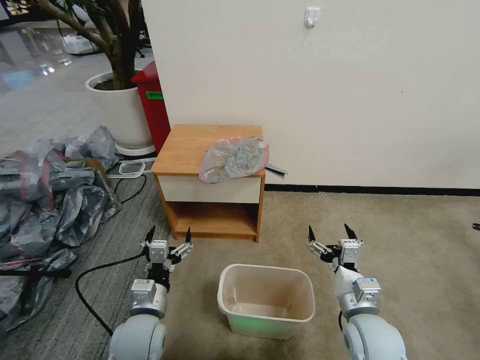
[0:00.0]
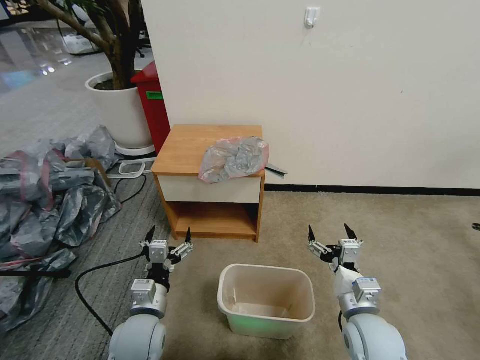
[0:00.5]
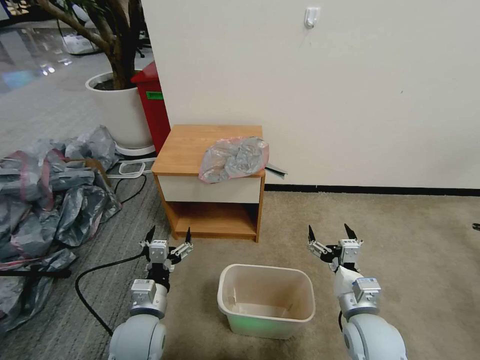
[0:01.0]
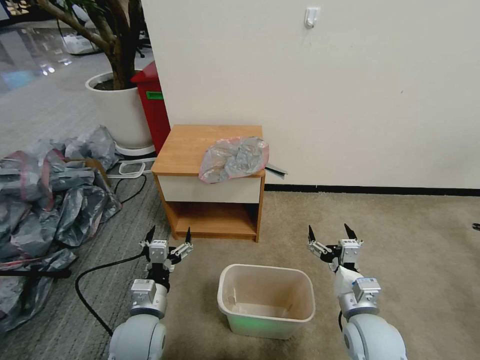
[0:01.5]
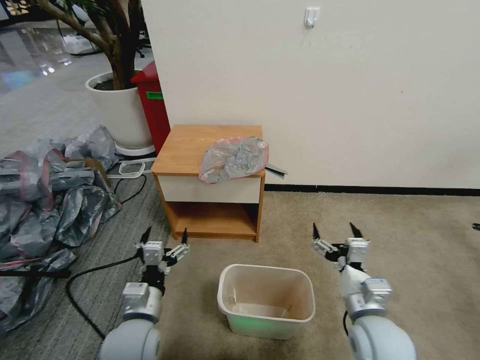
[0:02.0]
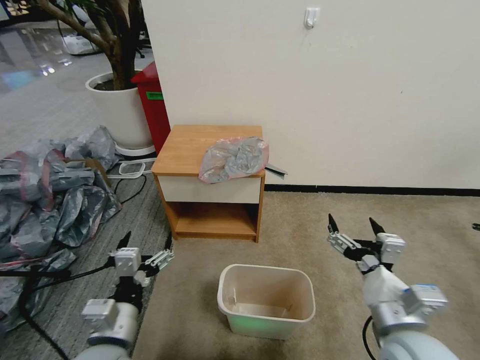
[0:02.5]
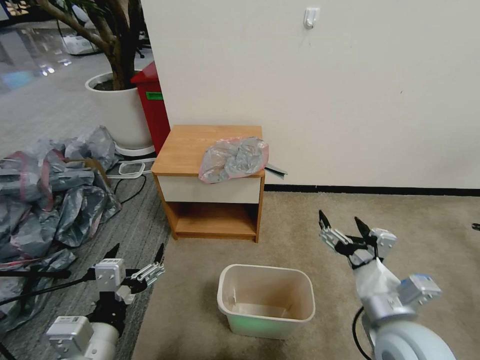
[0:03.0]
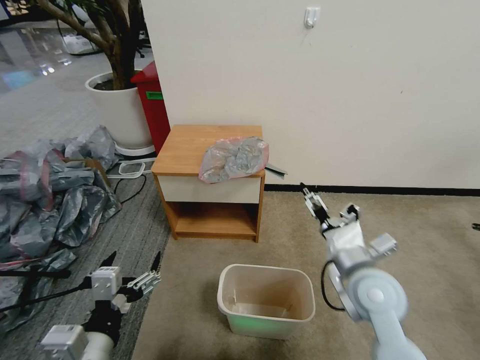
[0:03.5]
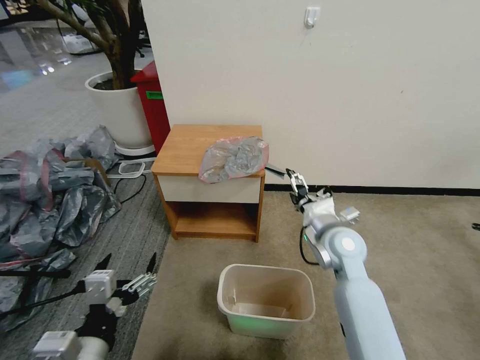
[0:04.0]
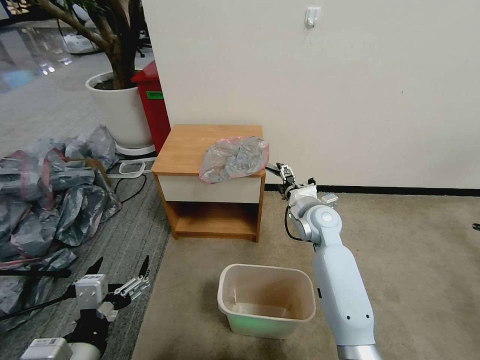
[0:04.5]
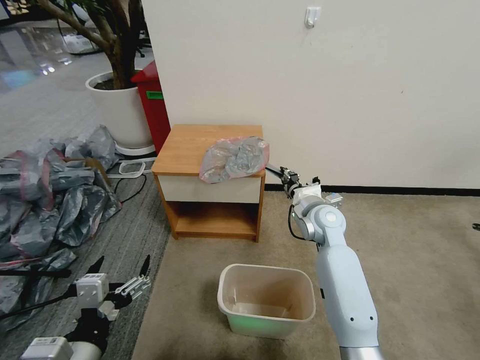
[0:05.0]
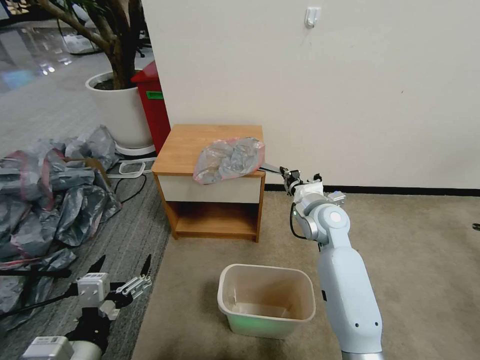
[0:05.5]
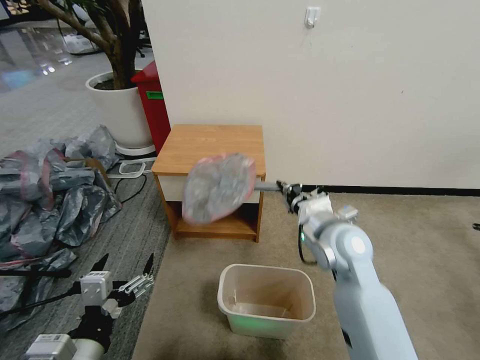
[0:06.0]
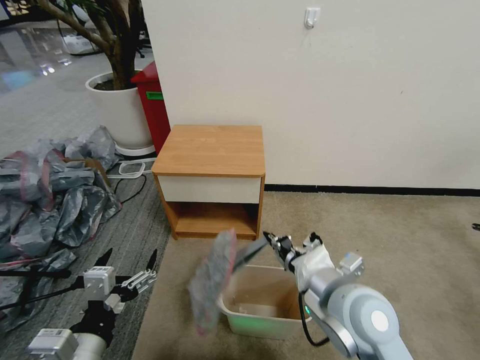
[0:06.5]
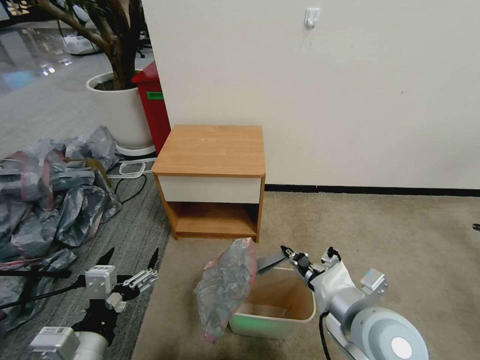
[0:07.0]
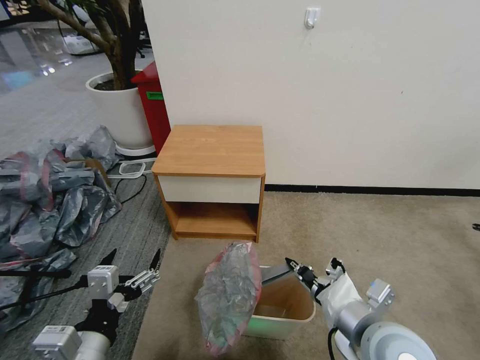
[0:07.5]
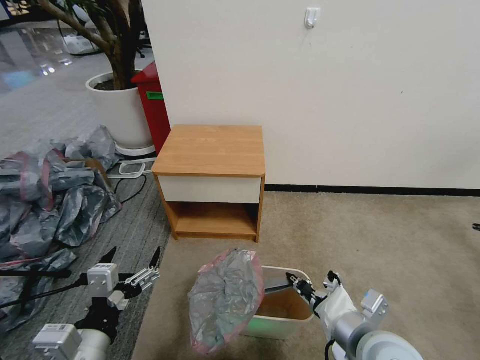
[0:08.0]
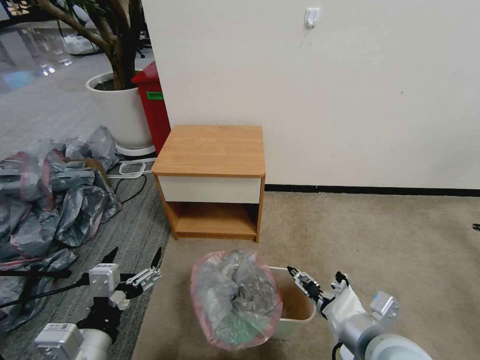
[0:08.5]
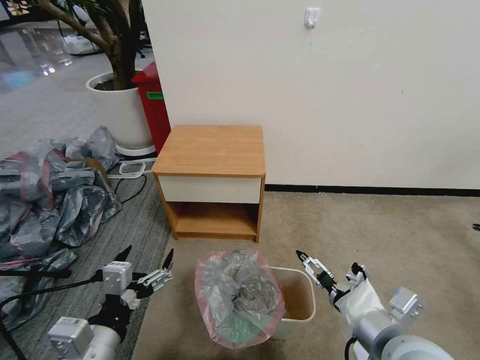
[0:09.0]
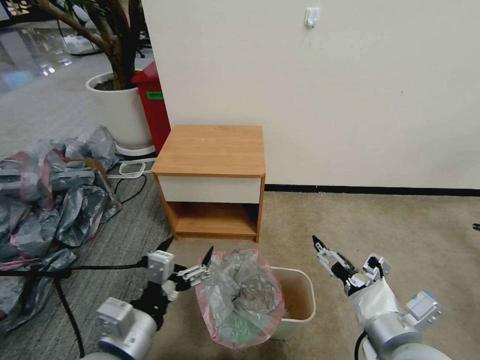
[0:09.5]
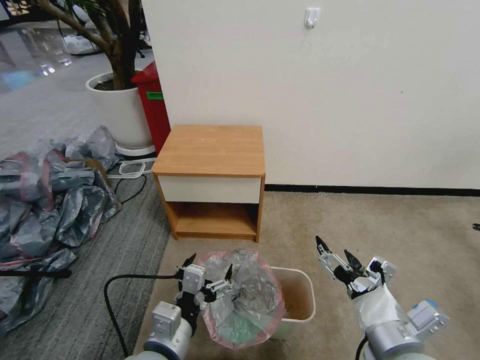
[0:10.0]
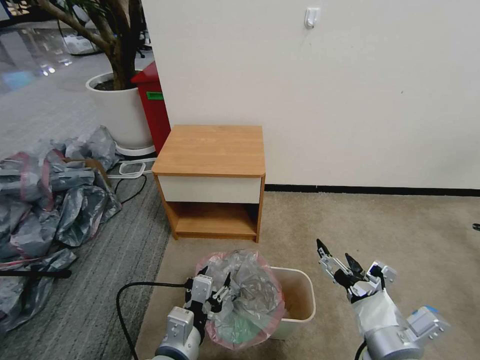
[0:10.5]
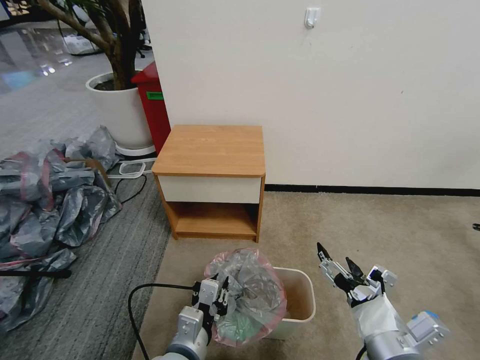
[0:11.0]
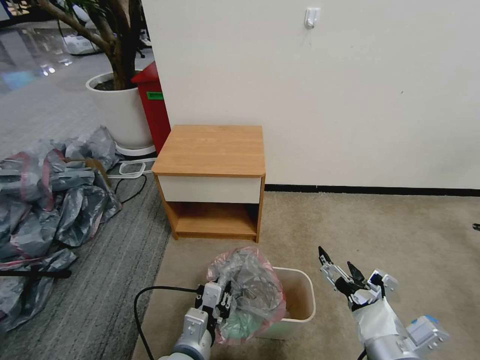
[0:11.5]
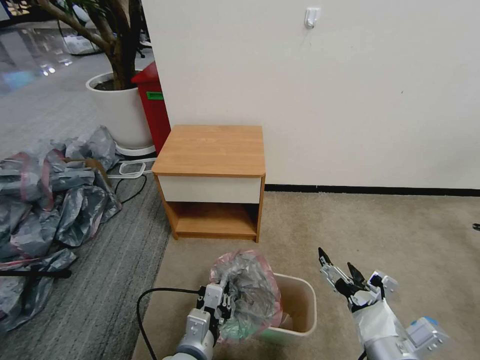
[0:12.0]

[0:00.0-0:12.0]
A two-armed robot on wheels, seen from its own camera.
Task of the whole recording: Pick up the garbage bag from the table and place it over the trash can.
0:02.0 to 0:04.0: The left gripper goes some 15 cm backward and upward. Meanwhile the right gripper is displaced forward by roughly 20 cm.
0:04.0 to 0:06.0: The right gripper moves roughly 5 cm, and closes up.
0:06.0 to 0:08.0: The right gripper travels backward by roughly 20 cm.
0:08.0 to 0:10.0: The right gripper opens up. Meanwhile the left gripper moves to the right, roughly 10 cm.
0:10.0 to 0:12.0: The left gripper goes roughly 10 cm downward, and closes.

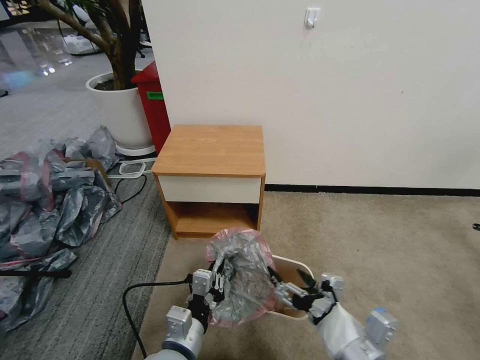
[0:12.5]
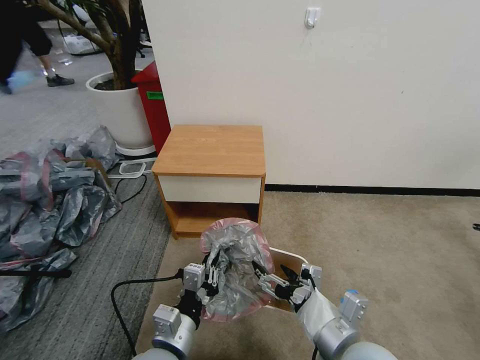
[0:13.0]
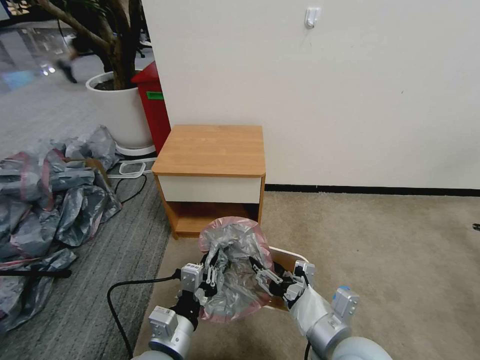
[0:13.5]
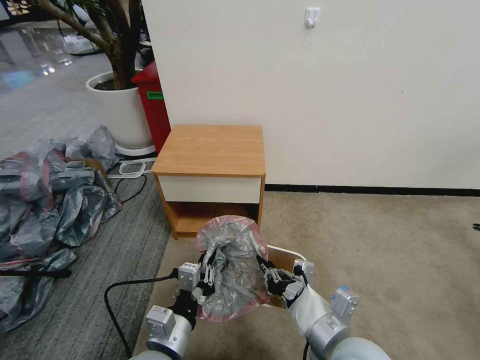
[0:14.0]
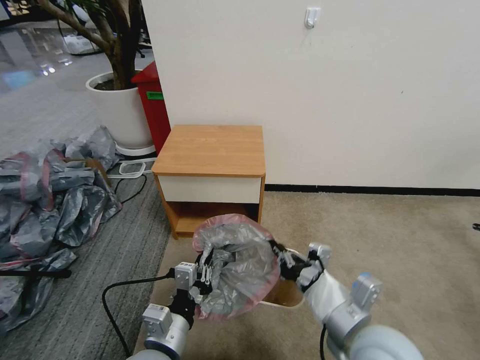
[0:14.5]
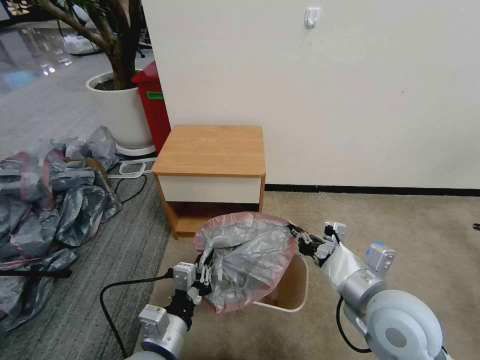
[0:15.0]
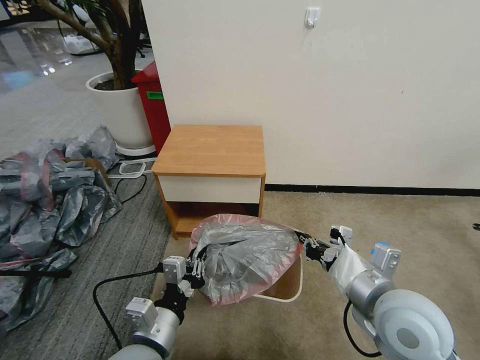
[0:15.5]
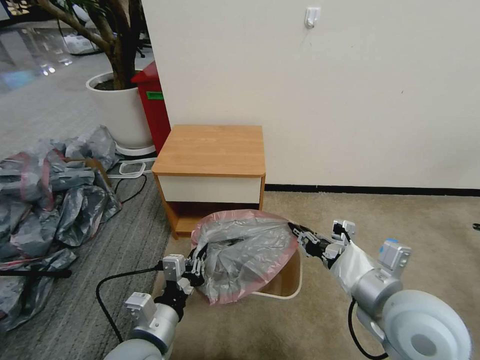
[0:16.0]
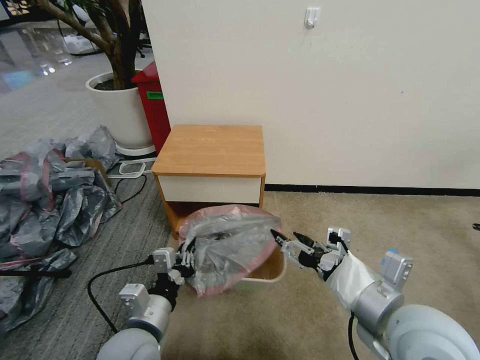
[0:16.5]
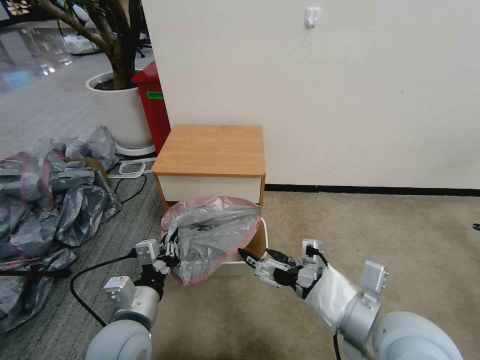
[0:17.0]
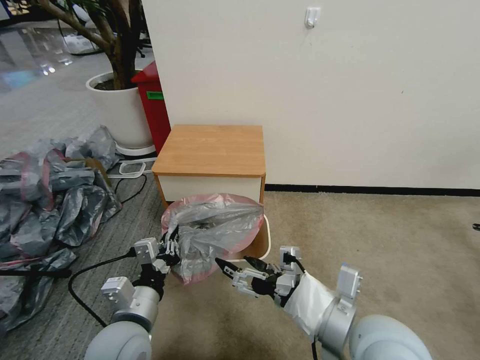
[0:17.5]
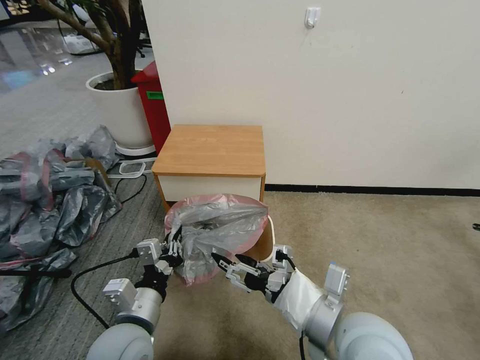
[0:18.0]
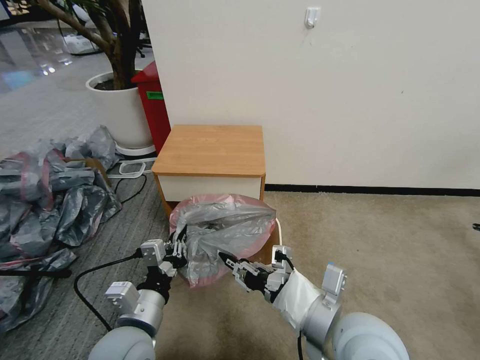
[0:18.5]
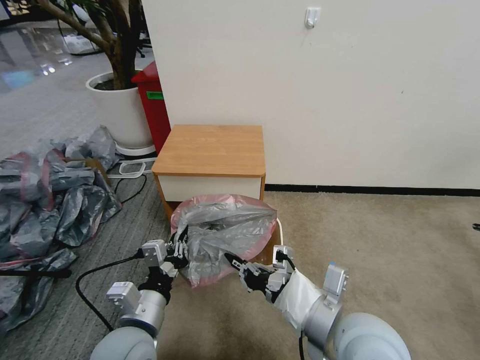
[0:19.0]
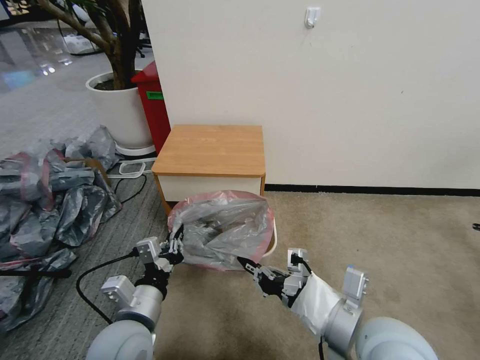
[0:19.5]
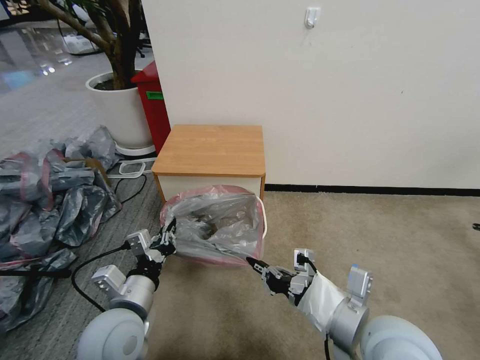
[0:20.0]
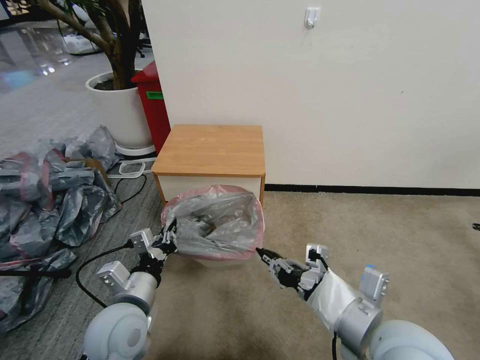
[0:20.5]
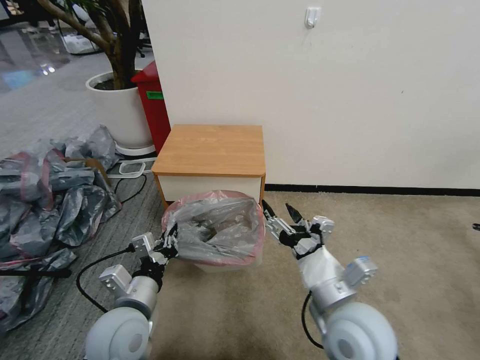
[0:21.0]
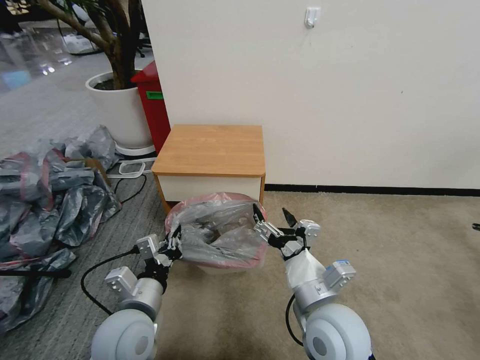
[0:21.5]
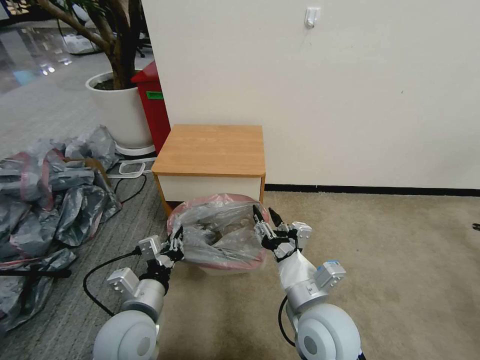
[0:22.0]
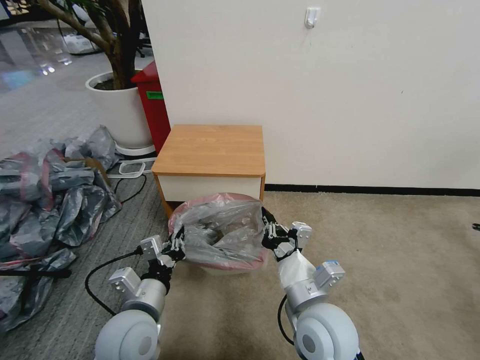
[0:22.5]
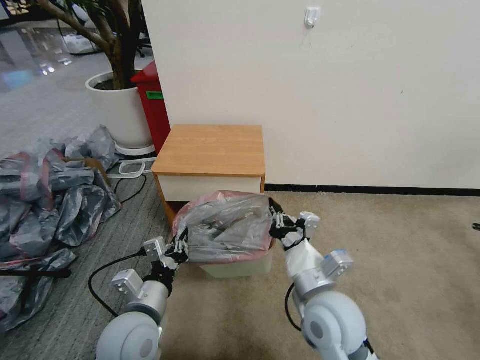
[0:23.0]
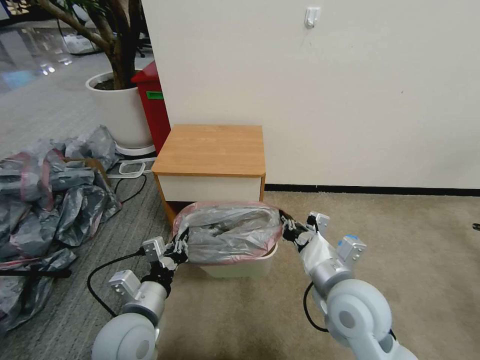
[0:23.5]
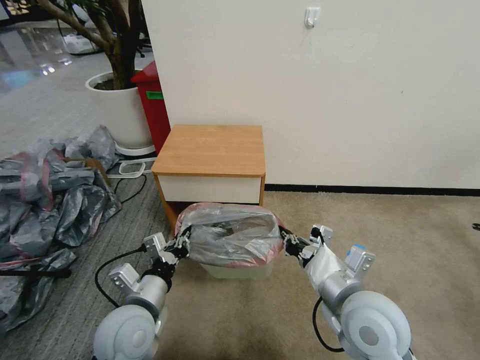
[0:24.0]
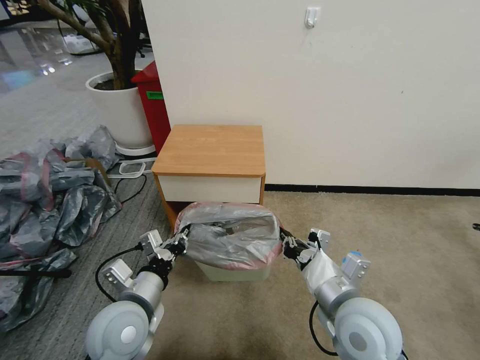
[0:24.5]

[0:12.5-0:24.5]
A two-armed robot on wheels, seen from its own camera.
Task of the whole recording: Pick up the garbage bag from the table and place it over the trash can.
0:12.5 to 0:14.5: The right gripper ends up about 5 cm from where it was, and closes its fingers.
0:14.5 to 0:16.5: The right gripper is displaced upward by some 5 cm, and opens its fingers.
0:16.5 to 0:18.5: The right gripper shifts about 5 cm to the left, and closes up.
0:18.5 to 0:20.5: The grippers make only small movements.
0:20.5 to 0:22.5: The right gripper is displaced to the left and downward by roughly 10 cm, and opens and closes again.
0:22.5 to 0:24.5: The right gripper shifts roughly 5 cm to the right.

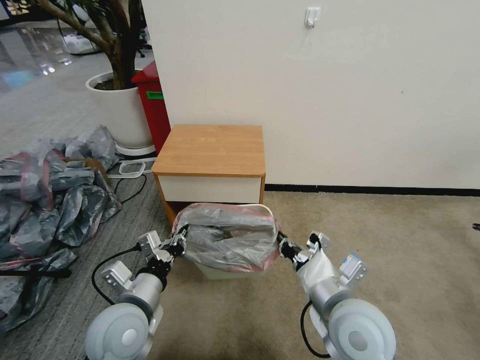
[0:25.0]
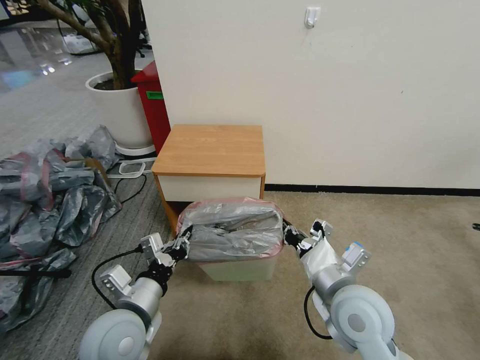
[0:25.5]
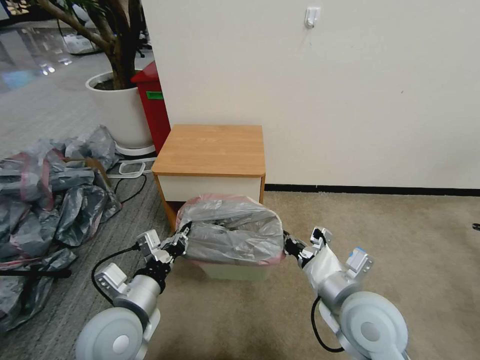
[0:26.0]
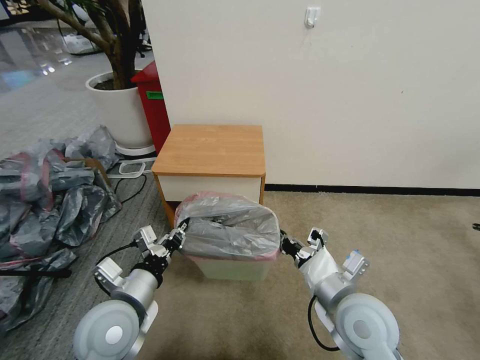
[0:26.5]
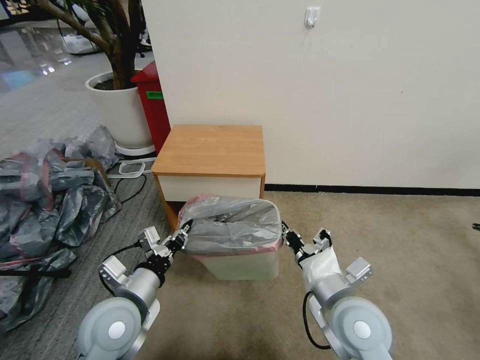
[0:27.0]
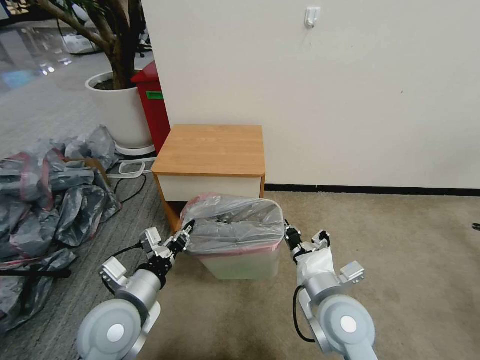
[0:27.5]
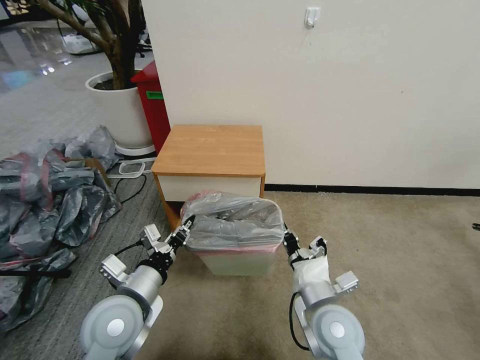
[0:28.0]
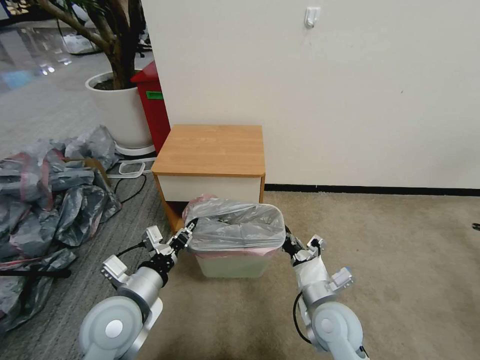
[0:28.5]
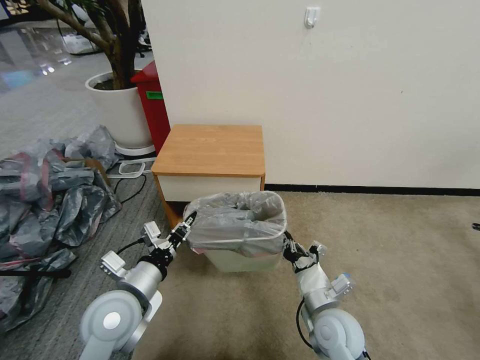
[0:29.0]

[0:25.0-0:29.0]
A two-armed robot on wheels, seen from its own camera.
Task of the whole recording: Pick up the garbage bag from the table and place it over the trash can.
0:27.0 to 0:29.0: The right gripper moves downward, approximately 10 cm.
